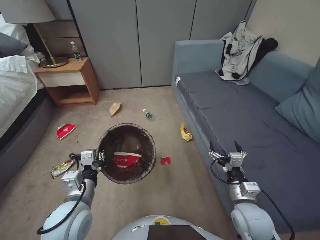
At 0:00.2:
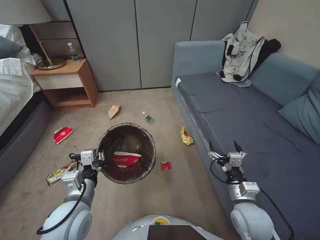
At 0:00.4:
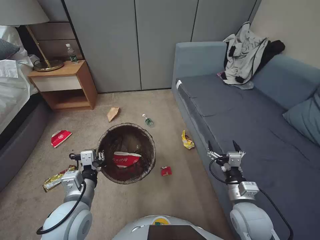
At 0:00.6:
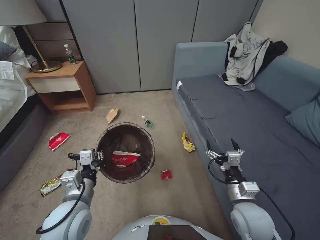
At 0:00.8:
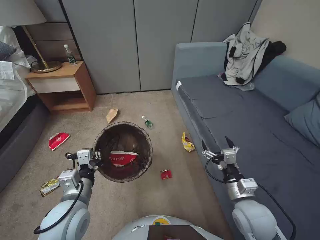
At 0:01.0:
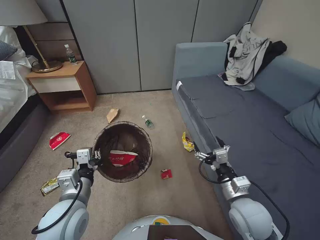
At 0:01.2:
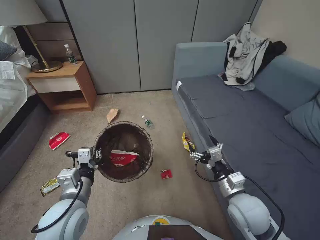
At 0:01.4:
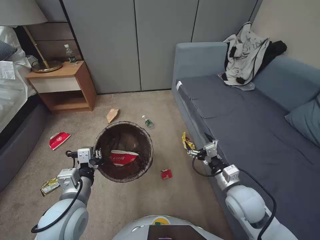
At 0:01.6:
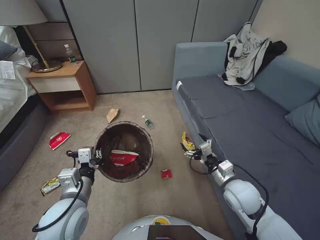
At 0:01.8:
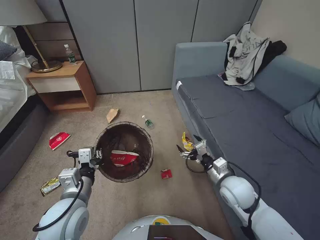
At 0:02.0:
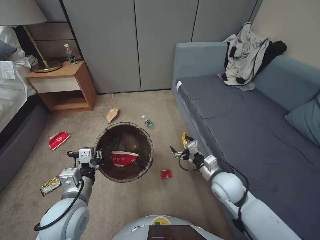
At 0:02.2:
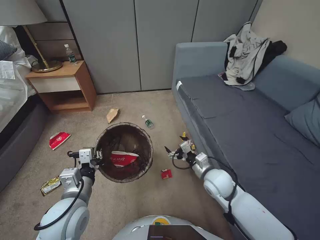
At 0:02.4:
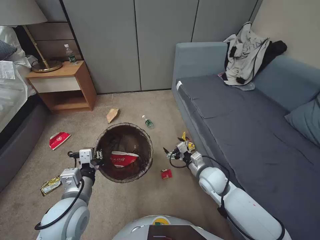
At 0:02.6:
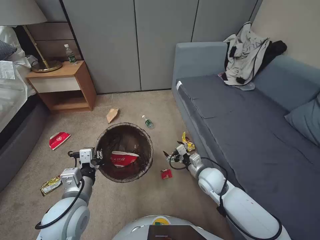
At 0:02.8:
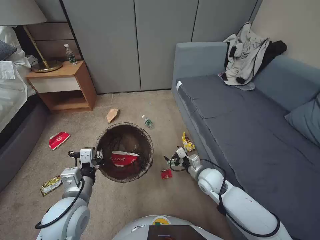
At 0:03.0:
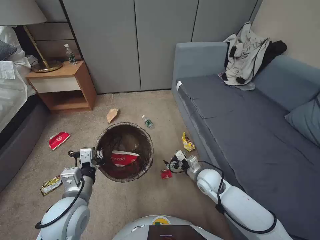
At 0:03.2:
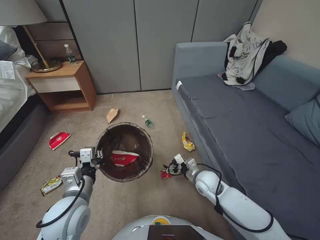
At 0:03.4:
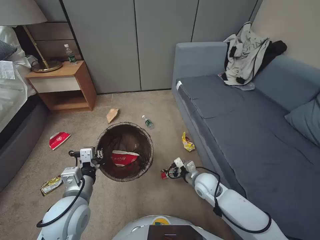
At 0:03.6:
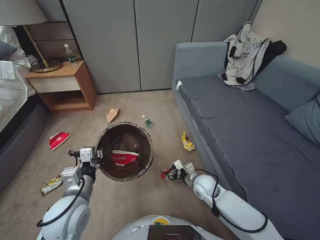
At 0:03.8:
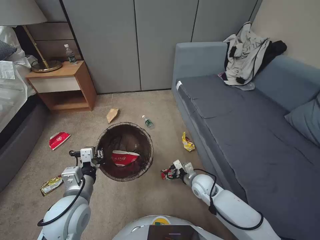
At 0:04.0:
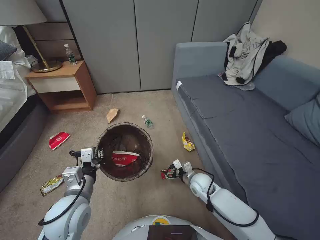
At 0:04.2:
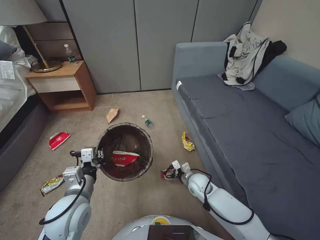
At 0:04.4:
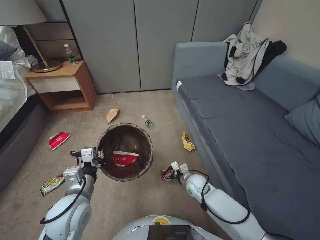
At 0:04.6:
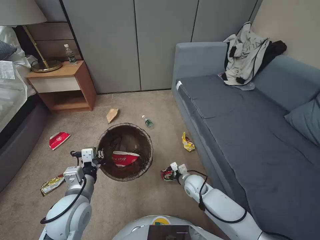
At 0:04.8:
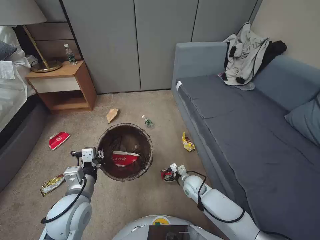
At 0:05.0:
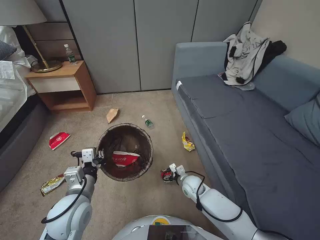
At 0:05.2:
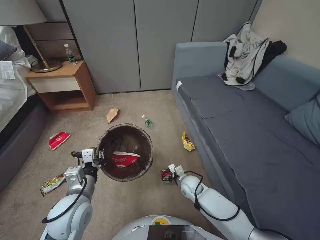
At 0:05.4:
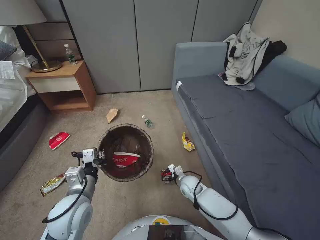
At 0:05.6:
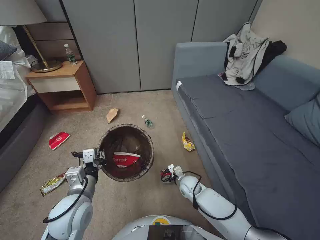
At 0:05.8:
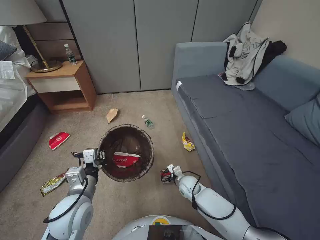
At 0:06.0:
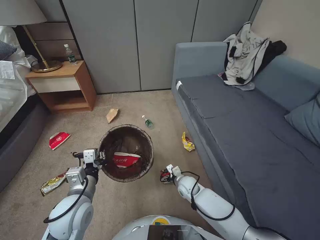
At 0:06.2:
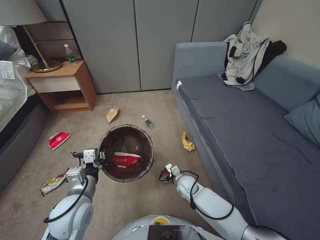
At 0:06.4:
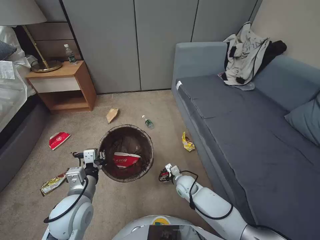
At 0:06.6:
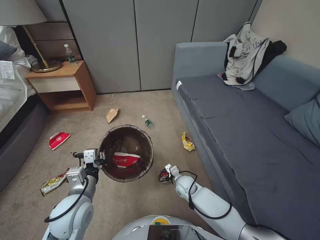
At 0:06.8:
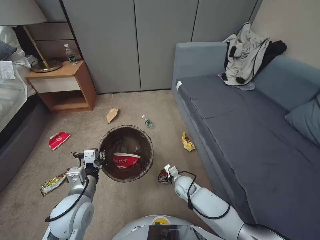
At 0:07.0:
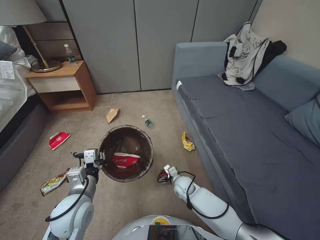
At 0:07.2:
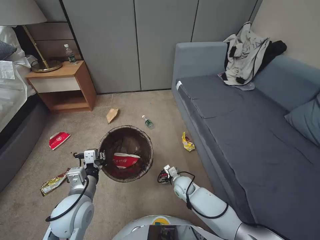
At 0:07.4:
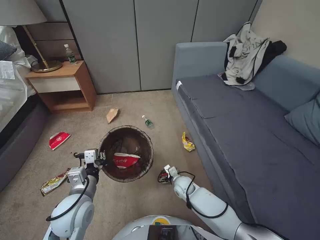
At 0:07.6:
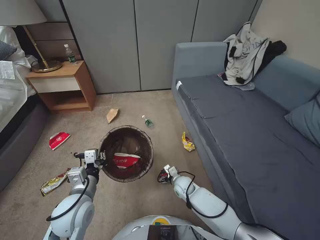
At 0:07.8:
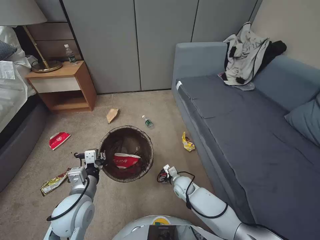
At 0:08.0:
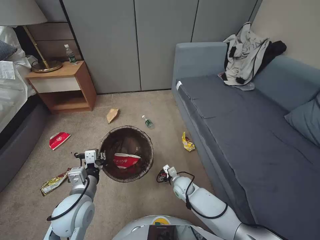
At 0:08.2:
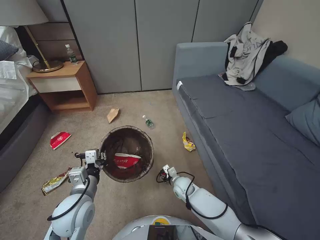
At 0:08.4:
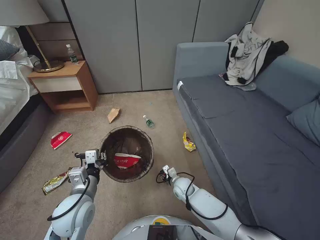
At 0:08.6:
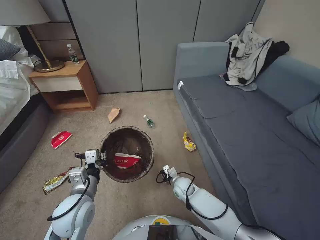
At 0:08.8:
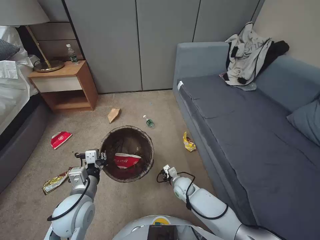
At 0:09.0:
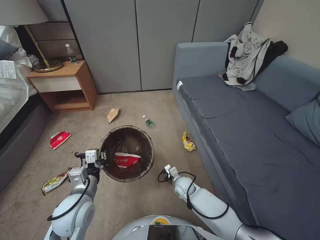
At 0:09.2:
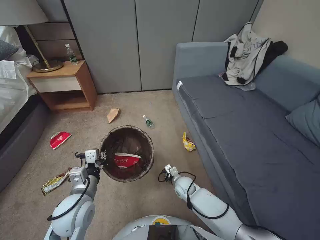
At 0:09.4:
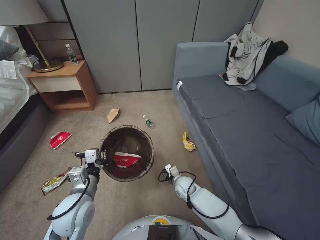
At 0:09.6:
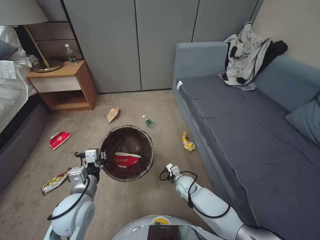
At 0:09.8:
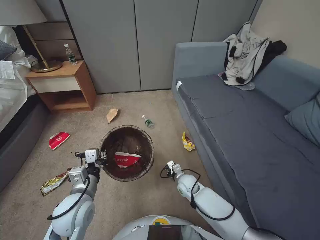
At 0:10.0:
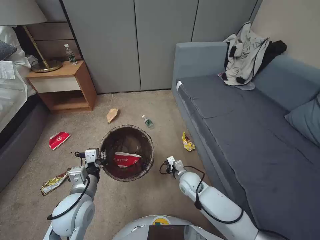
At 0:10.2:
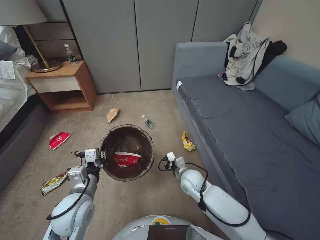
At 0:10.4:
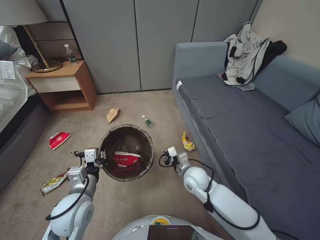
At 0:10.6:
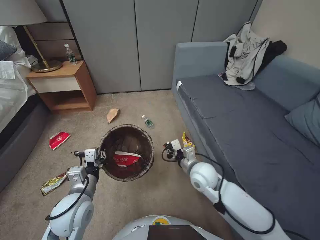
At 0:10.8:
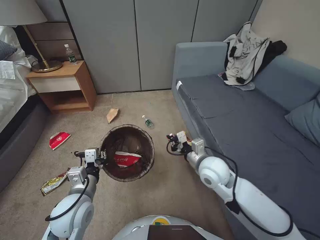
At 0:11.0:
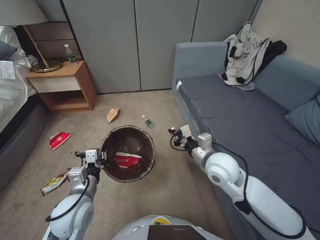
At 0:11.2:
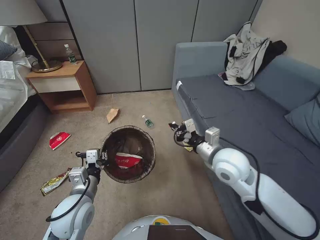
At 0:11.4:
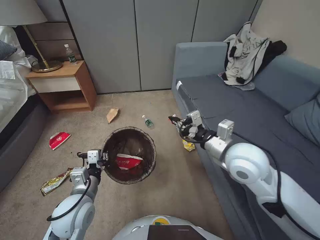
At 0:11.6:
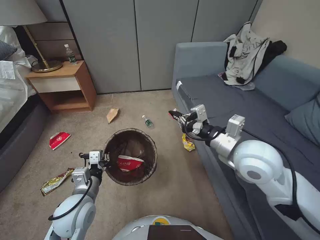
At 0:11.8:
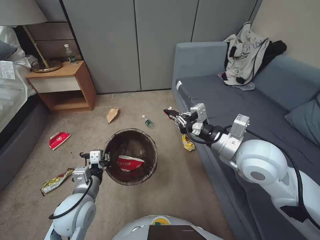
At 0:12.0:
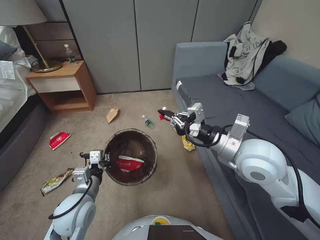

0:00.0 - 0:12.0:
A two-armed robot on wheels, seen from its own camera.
Task of the whole recording: Pick up the trash bin, then pick up the garbage from the floor and place it into the trash bin.
0:00.0 - 0:01.6: The right gripper shifts by approximately 5 cm.
0:01.6 - 0:03.0: The right gripper shifts about 15 cm downward and forward.
0:03.0 - 0:04.4: The right gripper is displaced downward by some 10 cm.
0:04.4 - 0:06.0: The right gripper ends up approximately 5 cm from where it was.
0:06.0 - 0:07.6: The grippers make only small movements.
0:07.6 - 0:09.0: The right gripper closes up.
0:09.0 - 0:10.4: The right gripper travels upward by about 15 cm.
0:10.4 - 0:12.0: The right gripper travels upward by roughly 30 cm.

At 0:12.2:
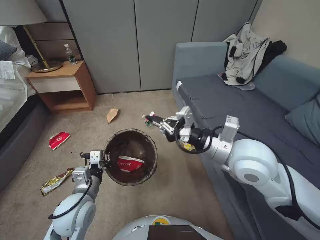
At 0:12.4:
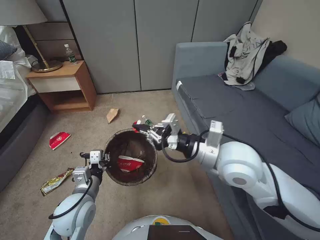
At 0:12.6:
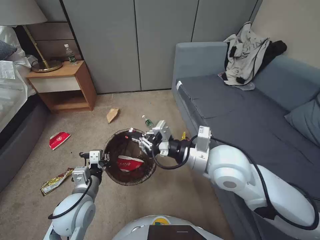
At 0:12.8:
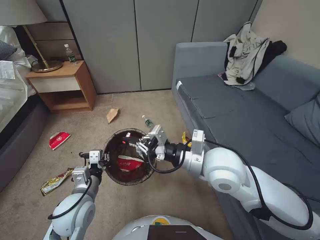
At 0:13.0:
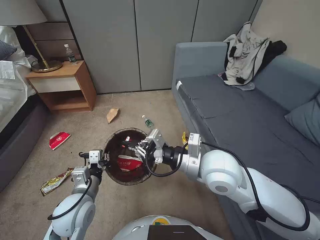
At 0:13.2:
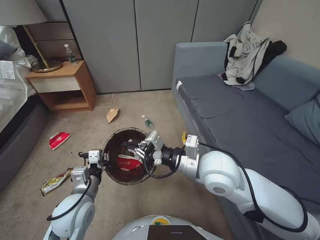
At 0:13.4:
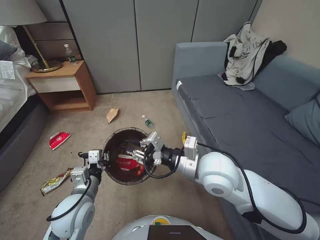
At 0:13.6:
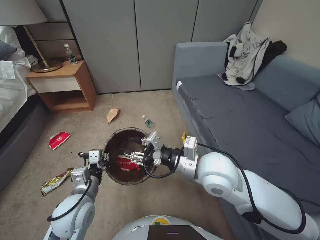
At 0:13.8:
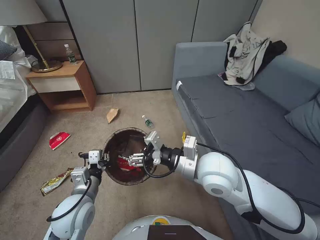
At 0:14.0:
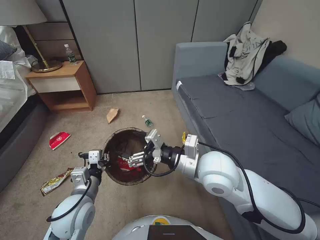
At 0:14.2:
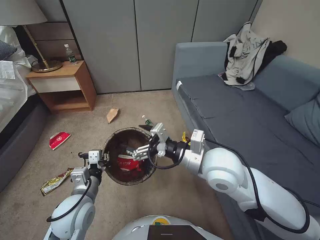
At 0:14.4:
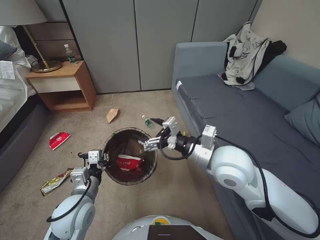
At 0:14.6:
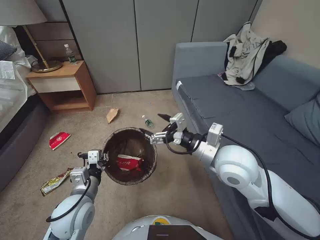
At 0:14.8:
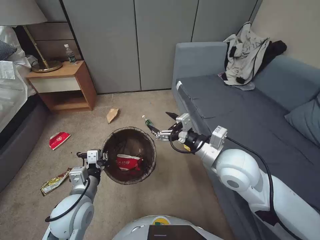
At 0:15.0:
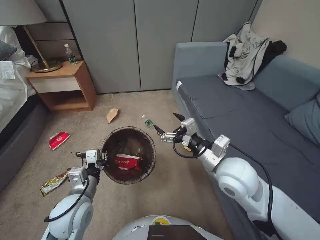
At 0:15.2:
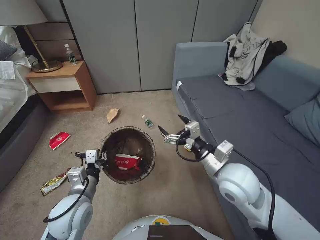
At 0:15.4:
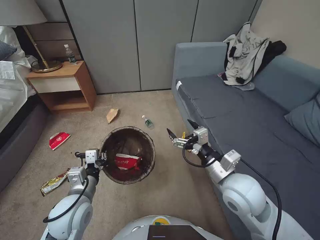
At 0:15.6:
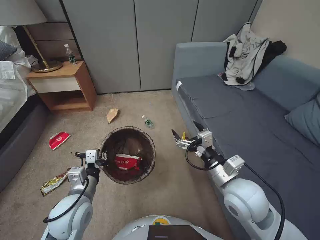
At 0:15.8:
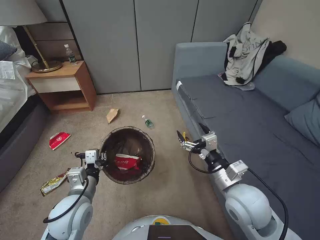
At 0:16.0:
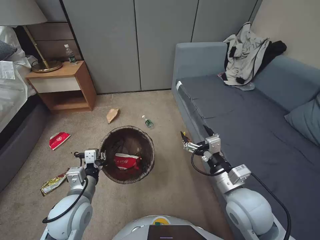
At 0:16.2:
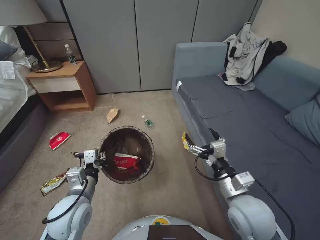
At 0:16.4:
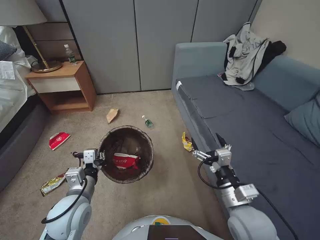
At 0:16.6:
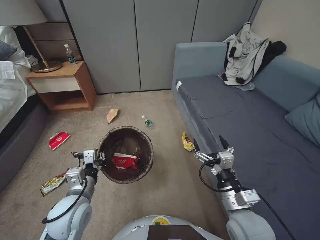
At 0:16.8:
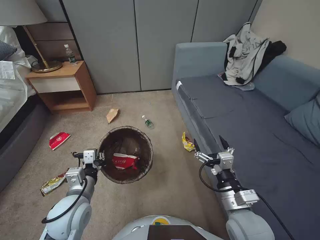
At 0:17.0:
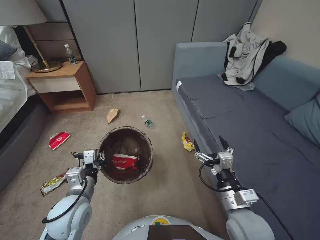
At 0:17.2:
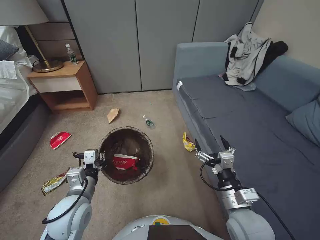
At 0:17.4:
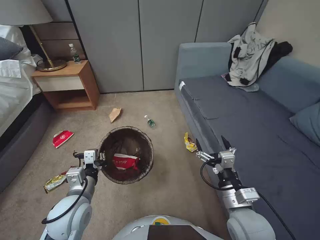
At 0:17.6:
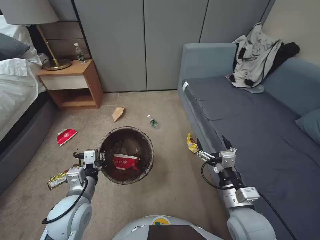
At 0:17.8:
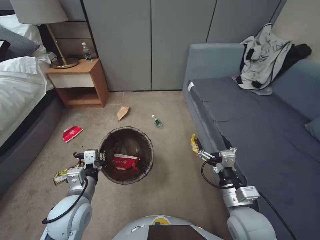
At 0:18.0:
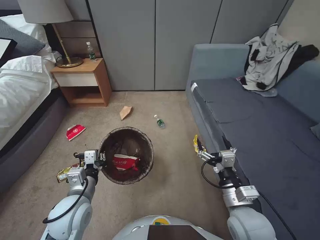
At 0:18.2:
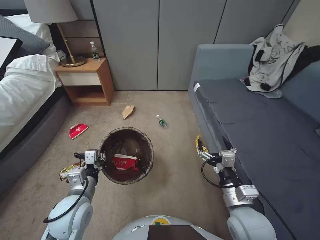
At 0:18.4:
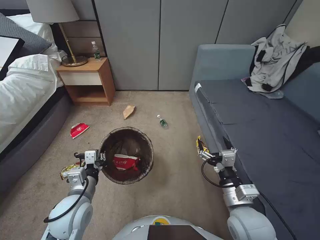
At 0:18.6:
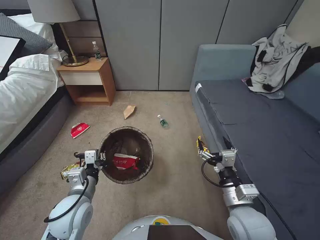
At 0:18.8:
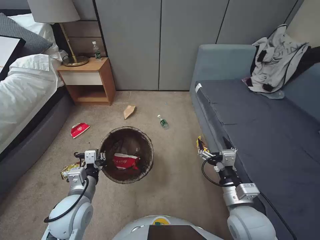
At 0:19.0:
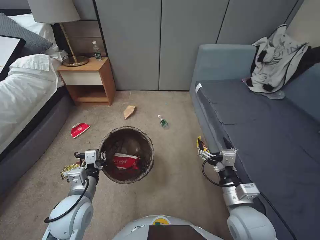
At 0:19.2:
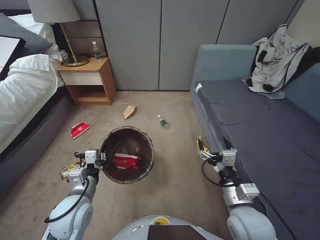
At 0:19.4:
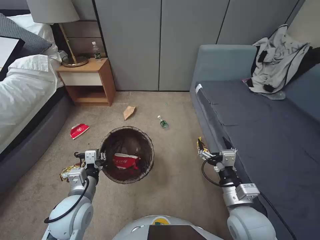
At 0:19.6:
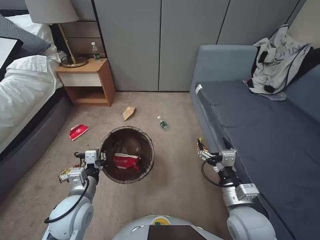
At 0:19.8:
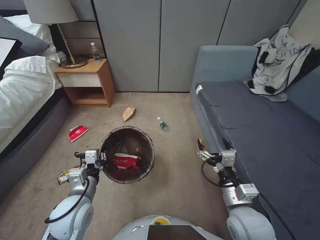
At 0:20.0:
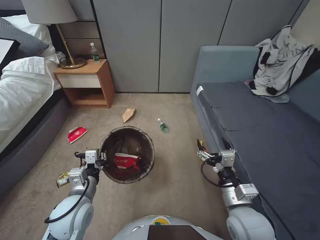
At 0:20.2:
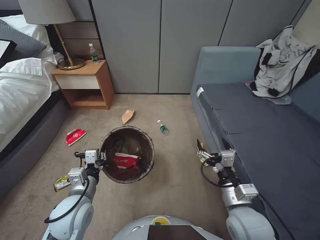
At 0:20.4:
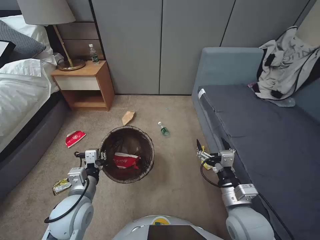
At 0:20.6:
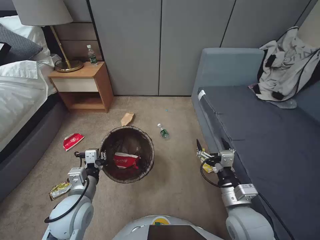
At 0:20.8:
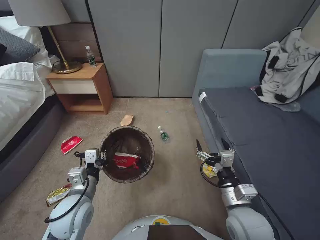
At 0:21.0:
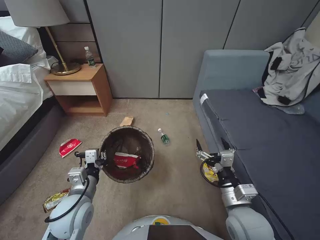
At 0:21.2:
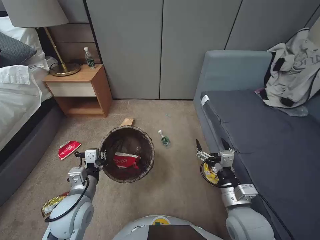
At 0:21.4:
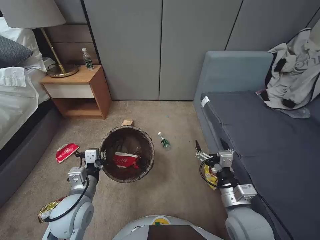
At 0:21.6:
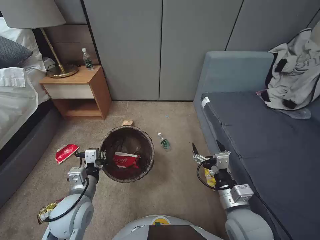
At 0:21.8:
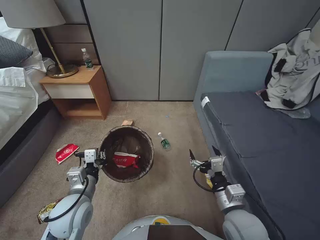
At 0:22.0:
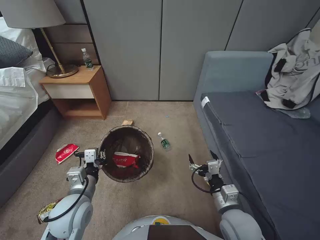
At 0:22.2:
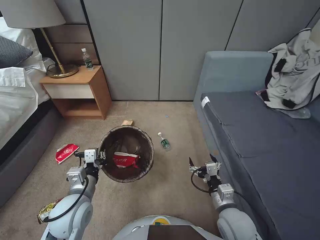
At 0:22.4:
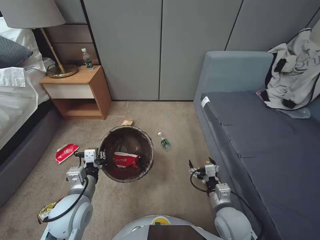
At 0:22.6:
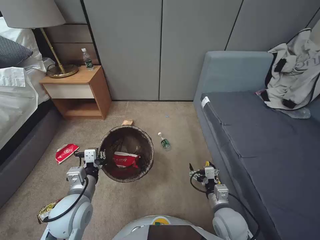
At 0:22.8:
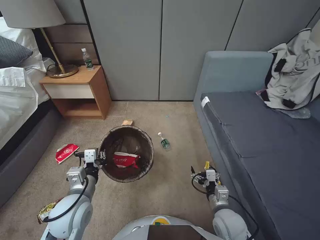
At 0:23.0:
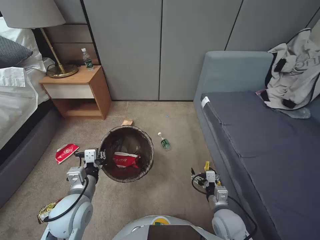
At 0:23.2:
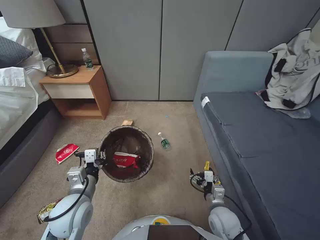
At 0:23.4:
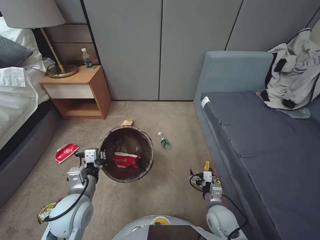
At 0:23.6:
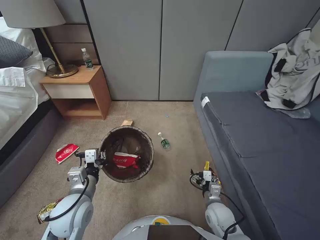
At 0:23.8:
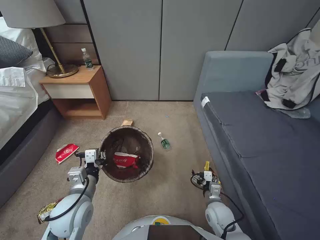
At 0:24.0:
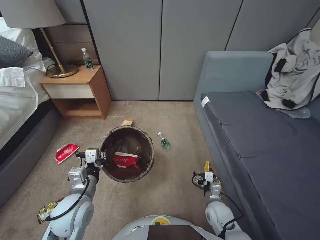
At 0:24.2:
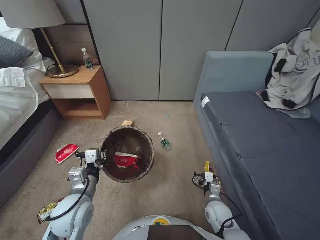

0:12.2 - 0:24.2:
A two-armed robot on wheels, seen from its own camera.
Task of the whole recording: Pick up the trash bin, then pick up the garbage from the floor and place it into the trash bin.
0:12.2 - 0:13.8: The right gripper heads to the left and downward, covering roughly 10 cm, and opens its fingers.
0:13.8 - 0:15.2: The right gripper shifts approximately 5 cm to the right, and opens its fingers.
0:15.2 - 0:16.6: The right gripper is displaced backward and downward by roughly 15 cm.
0:18.2 - 0:19.8: Both grippers stay put.
0:21.2 - 0:22.6: The right gripper travels downward by some 10 cm.
0:22.6 - 0:24.2: The right gripper shifts some 10 cm downward.
